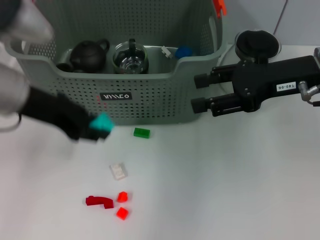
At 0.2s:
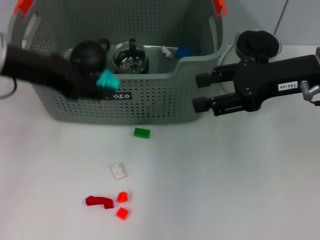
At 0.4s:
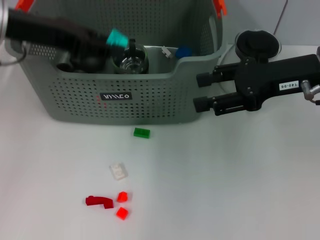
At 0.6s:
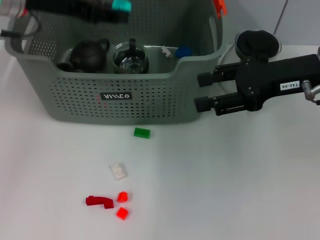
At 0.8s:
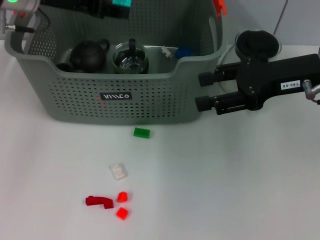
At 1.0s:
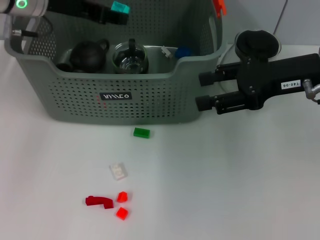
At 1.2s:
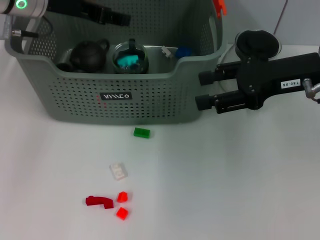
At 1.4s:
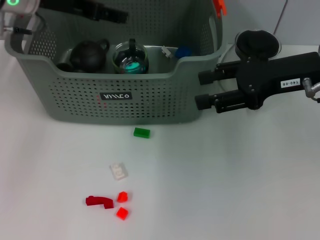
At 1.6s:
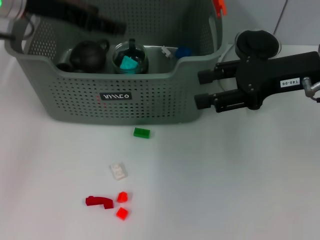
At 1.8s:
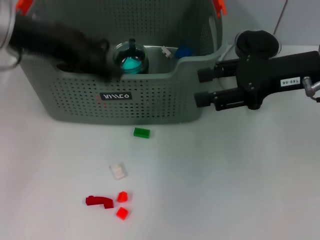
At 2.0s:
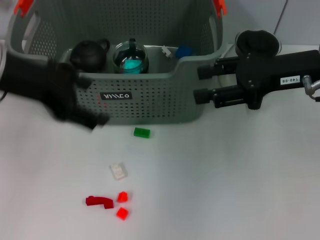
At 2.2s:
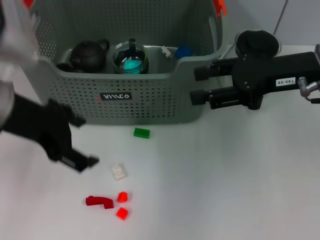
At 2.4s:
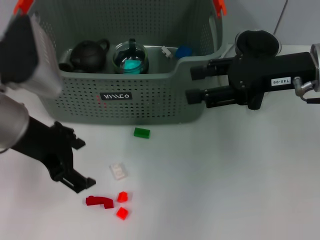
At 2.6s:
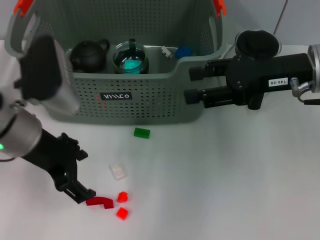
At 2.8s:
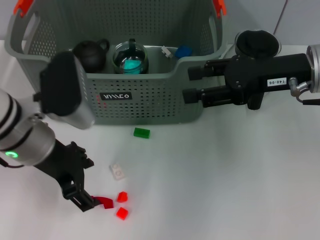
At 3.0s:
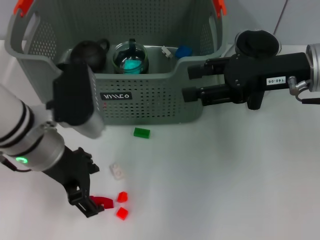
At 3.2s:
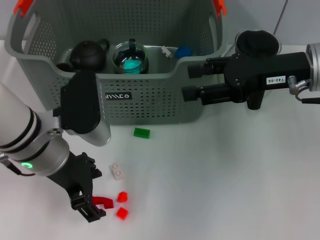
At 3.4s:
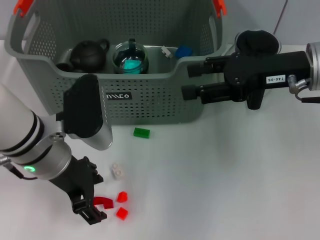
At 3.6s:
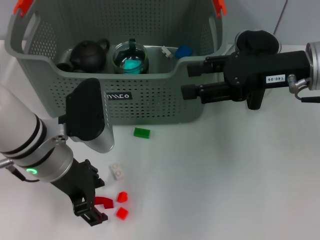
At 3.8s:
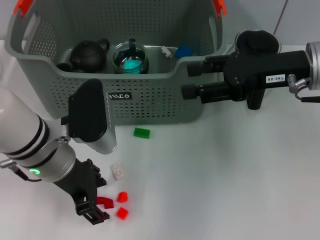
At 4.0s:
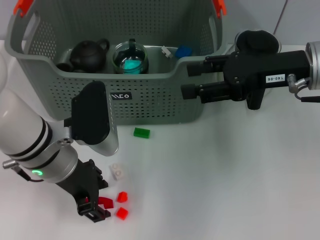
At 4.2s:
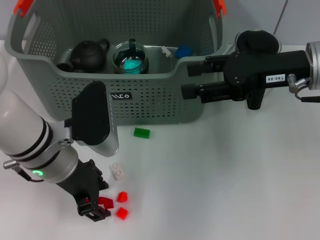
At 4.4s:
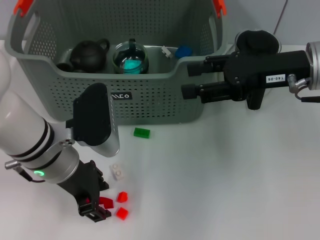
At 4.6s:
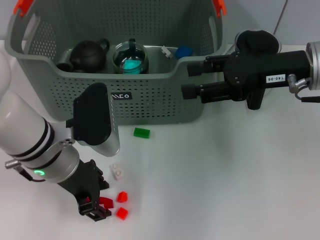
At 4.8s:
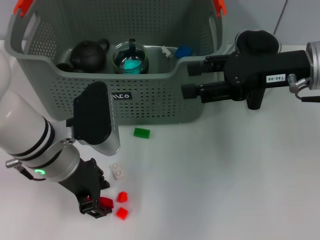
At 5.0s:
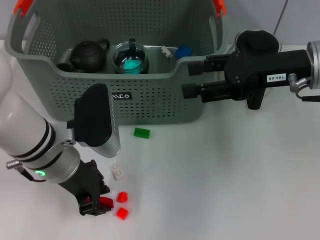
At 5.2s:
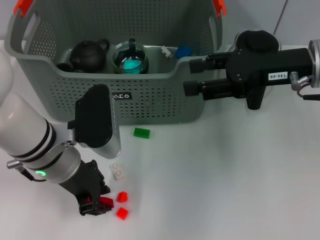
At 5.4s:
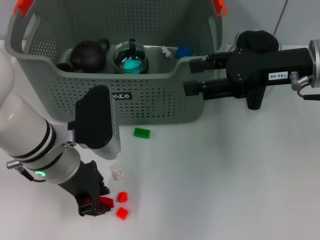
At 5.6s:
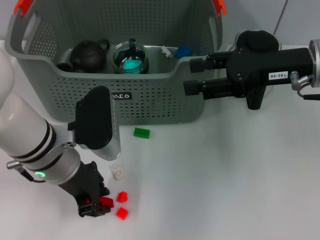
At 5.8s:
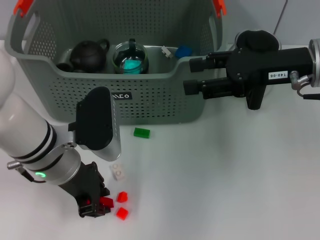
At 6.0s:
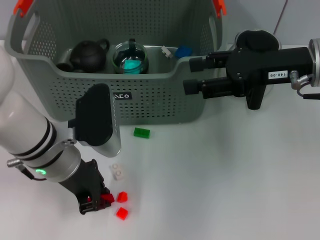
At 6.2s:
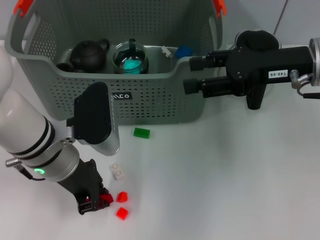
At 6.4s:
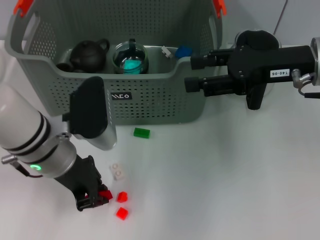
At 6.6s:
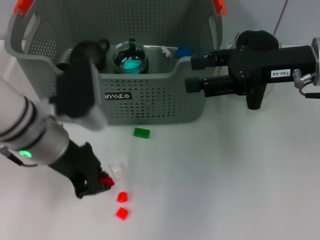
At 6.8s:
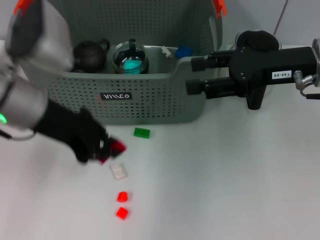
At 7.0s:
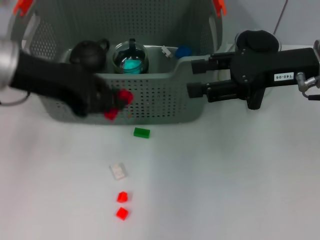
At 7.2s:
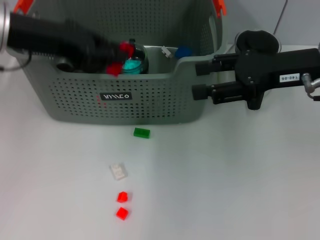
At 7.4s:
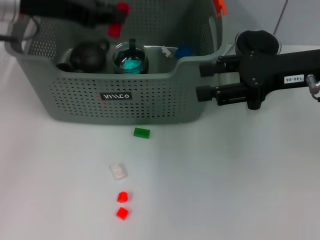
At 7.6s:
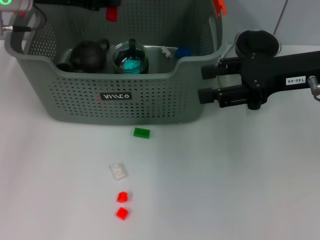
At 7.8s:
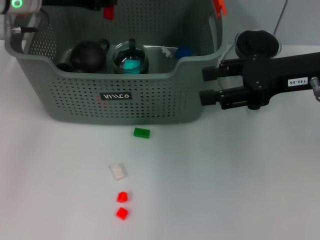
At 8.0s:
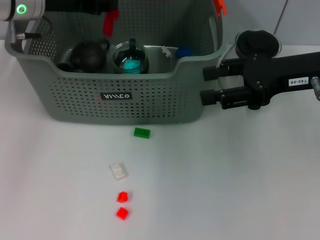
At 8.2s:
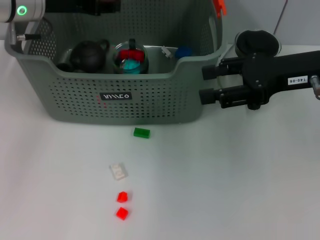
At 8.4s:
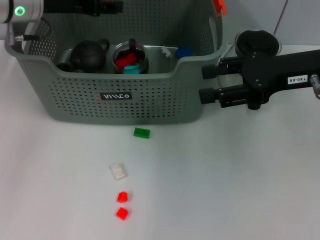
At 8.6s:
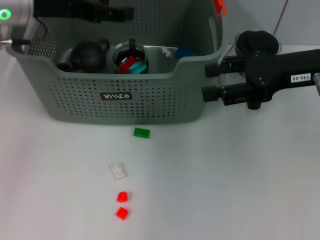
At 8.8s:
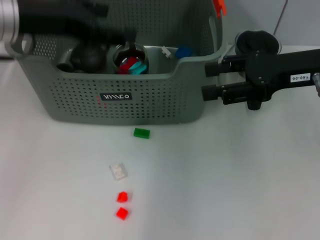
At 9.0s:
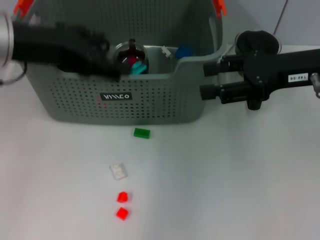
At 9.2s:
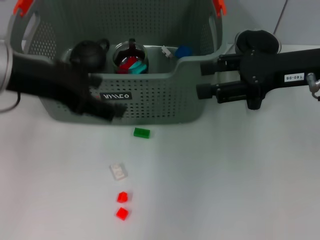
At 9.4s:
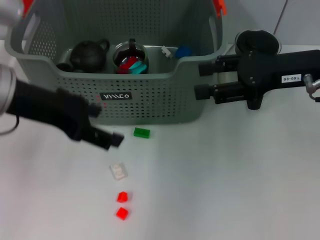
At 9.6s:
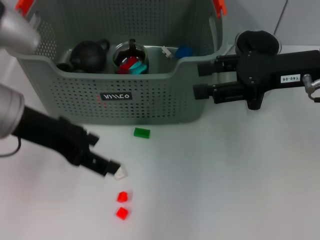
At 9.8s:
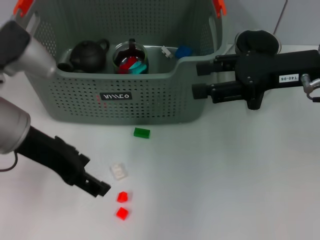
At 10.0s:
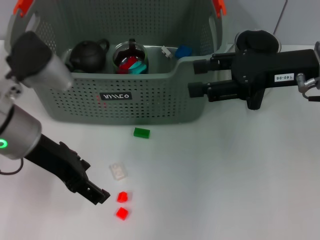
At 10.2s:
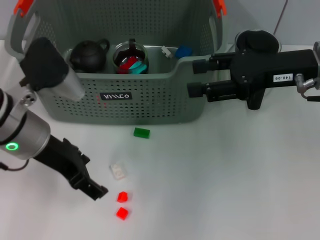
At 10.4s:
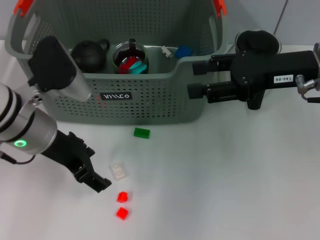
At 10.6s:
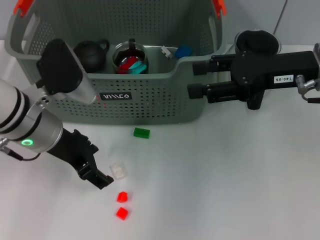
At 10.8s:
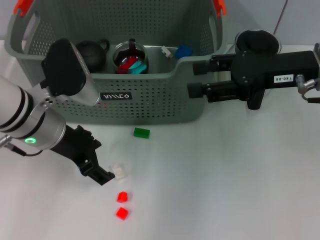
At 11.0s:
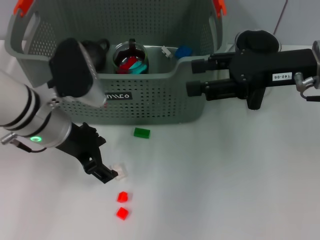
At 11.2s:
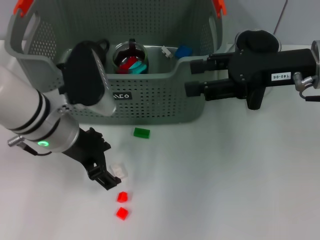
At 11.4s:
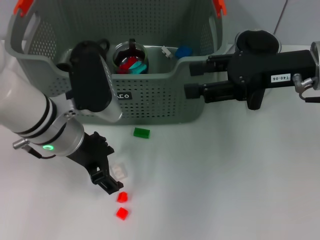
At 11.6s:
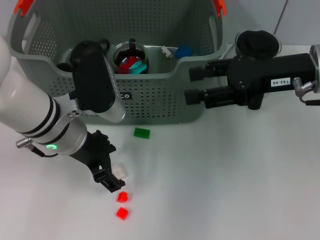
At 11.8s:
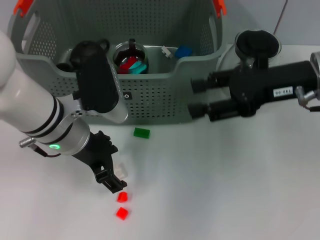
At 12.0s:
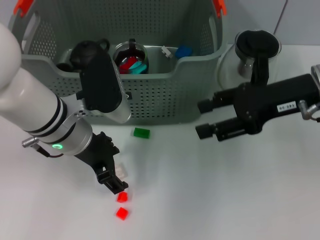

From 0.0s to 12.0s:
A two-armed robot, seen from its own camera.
Task of the whole recording: pick up the teacup on the table and place it into the storage bin, pick up the block on the table and place it into the storage bin.
Step, from 0.0s to 1.6s: Place the light blue block in the storage box with left gripper.
Step, from 1.8s to 6.4s: Grasp the red block with left gripper.
Step, from 6.6s to 8.6s: Place the red block in the storage box with left gripper.
From 0.0s to 1.6s: The left gripper goes roughly 10 cm forward, and opens its fingers.
From 1.6s to 3.0s: The left gripper moves downward, backward and to the right, roughly 15 cm.
From 3.0s to 4.4s: The grippers move only a little.
From 4.4s to 6.0s: Both grippers stay about where they are.
From 6.0s to 7.6s: The left gripper is displaced forward, upward and to the left by approximately 20 cm.
From 7.6s to 9.0s: The left gripper is displaced backward by roughly 10 cm, and opens.
From 9.0s to 10.4s: The left gripper goes some 10 cm downward.
From 10.4s to 12.0s: The left gripper changes place by about 5 cm.

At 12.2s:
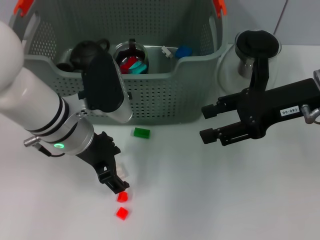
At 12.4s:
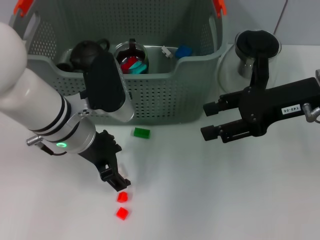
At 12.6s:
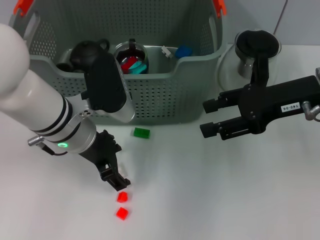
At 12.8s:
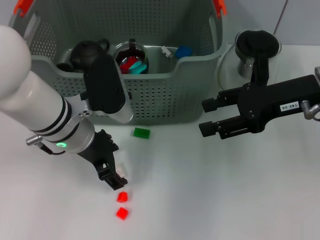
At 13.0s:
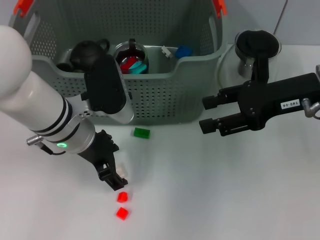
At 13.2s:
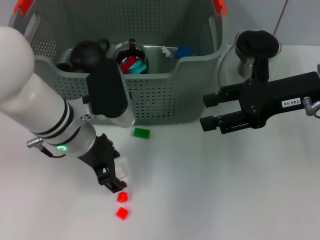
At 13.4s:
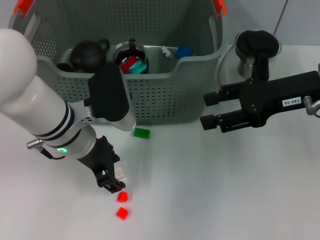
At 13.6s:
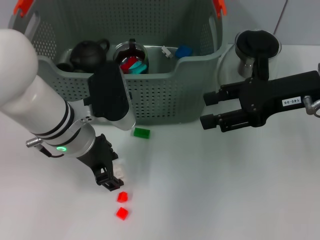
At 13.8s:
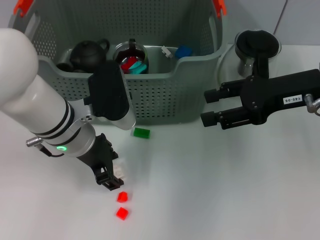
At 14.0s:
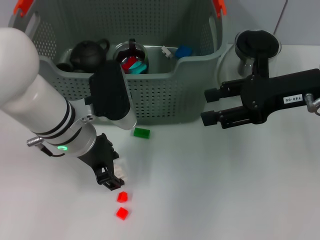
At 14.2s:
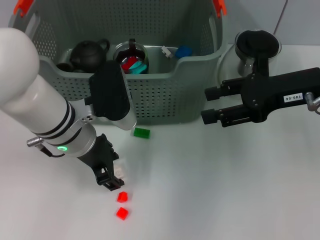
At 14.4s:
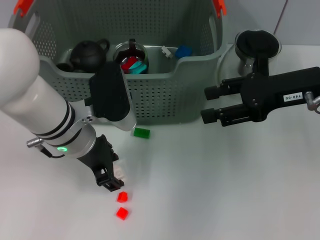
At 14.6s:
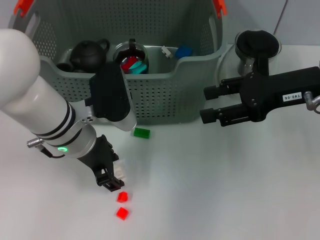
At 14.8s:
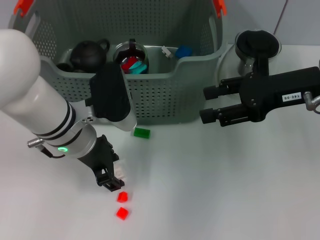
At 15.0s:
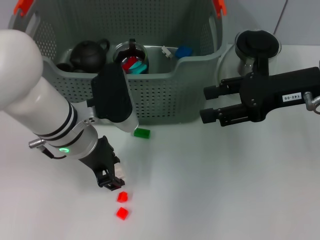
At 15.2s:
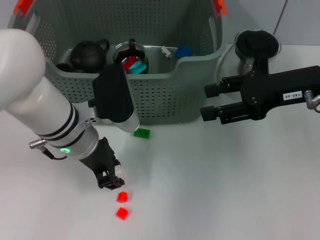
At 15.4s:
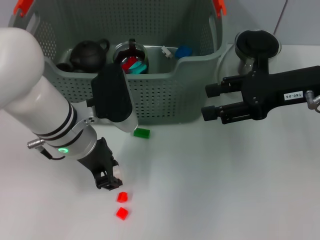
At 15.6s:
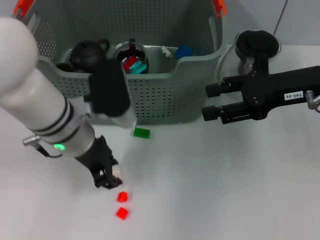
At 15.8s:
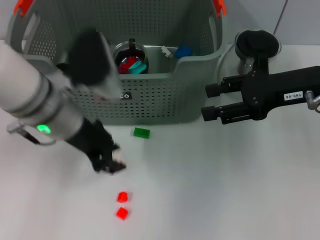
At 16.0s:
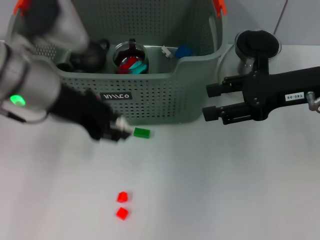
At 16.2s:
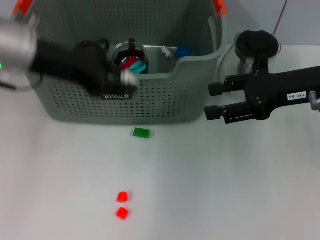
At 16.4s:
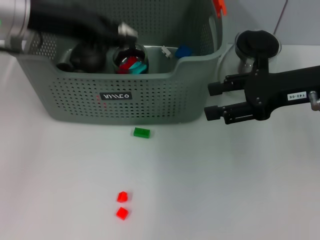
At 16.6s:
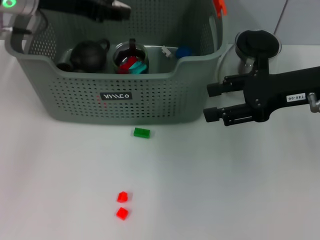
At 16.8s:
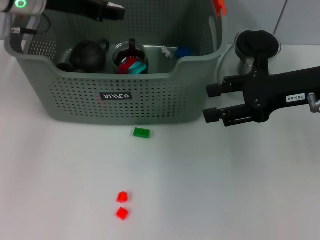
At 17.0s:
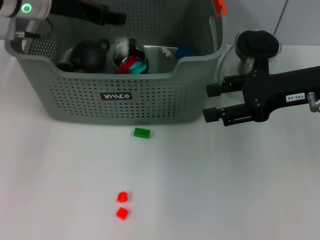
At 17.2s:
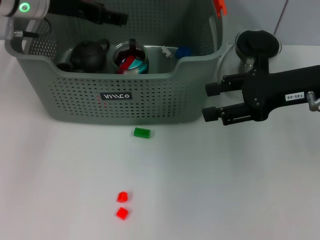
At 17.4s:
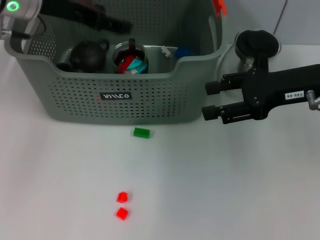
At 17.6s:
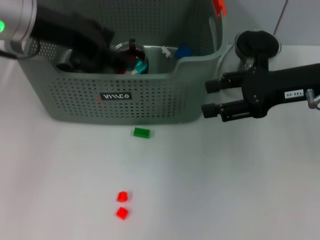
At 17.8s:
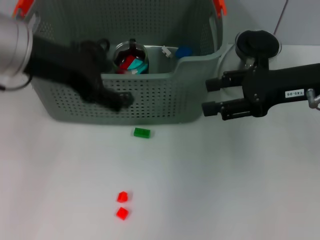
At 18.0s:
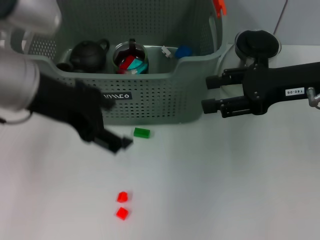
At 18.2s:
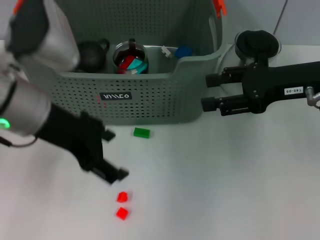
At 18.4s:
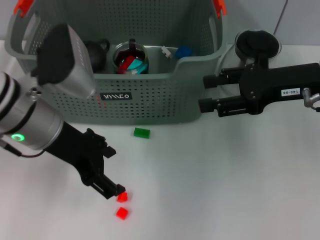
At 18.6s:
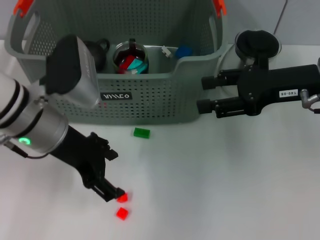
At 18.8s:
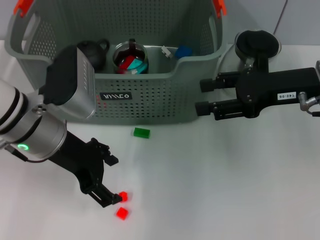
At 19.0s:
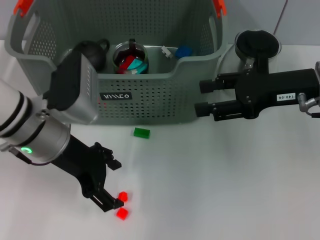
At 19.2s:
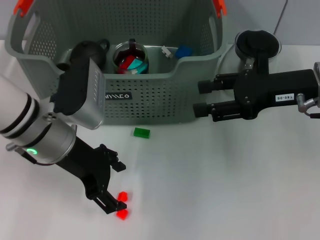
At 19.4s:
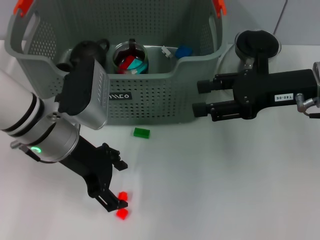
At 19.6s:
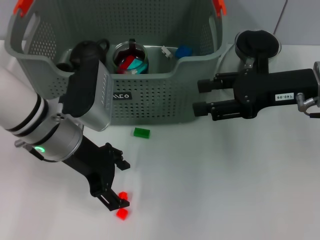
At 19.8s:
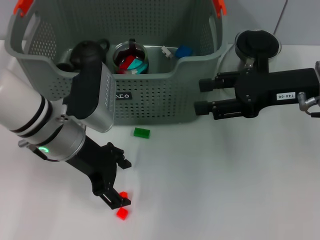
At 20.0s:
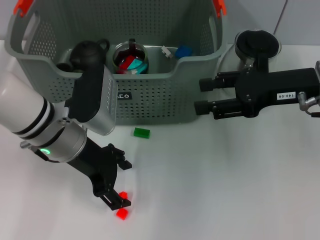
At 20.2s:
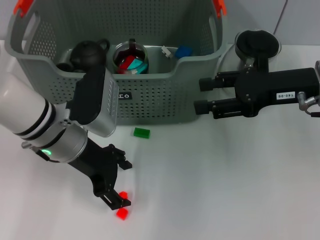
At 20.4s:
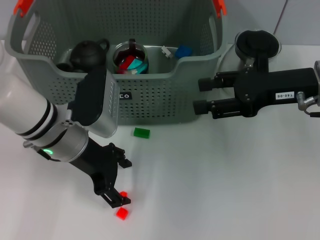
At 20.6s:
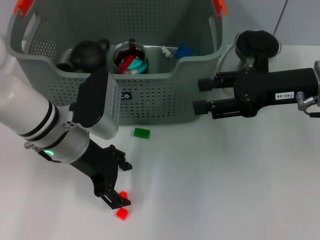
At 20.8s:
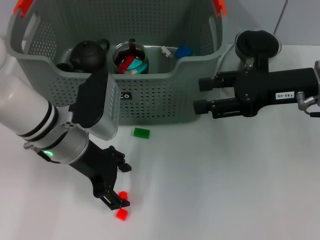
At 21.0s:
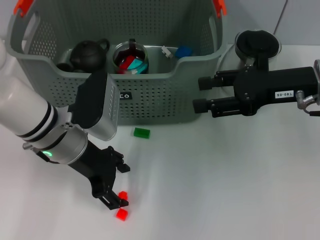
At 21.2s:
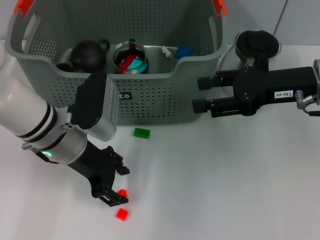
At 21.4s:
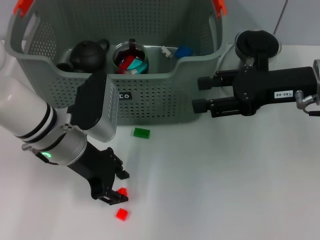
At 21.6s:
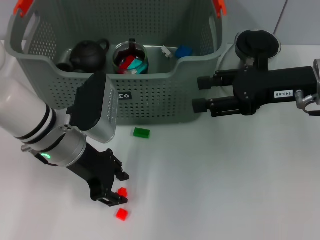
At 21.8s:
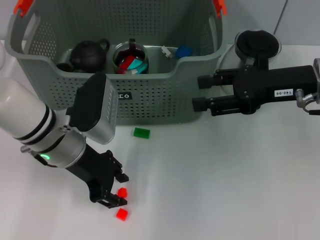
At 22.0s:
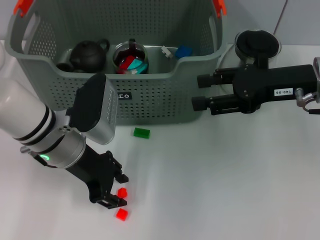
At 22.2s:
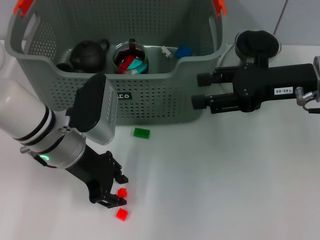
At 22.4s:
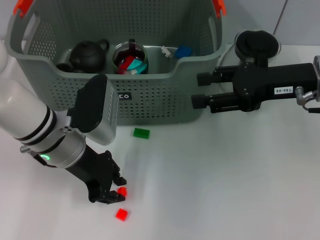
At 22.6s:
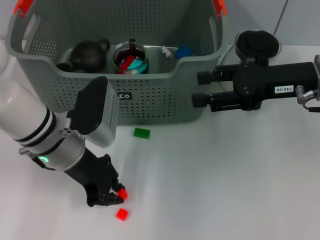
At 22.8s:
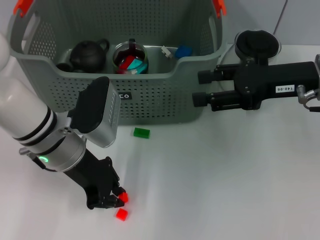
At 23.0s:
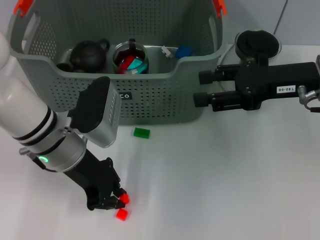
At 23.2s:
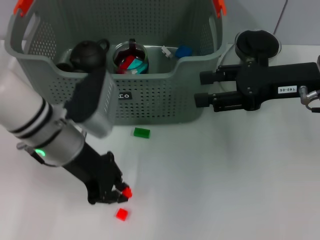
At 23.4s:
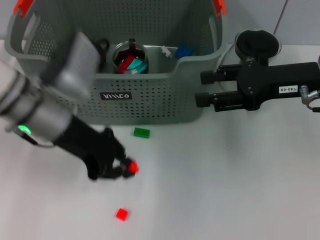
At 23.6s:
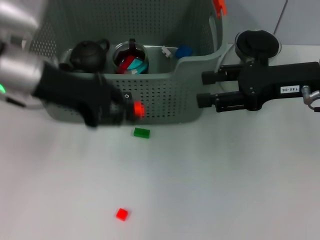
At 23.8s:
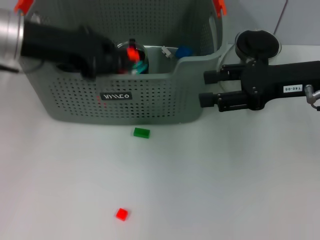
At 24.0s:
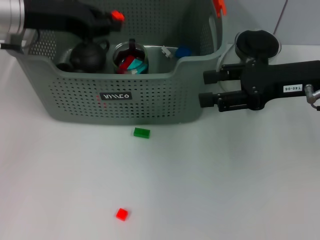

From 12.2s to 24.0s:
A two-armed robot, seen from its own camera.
Task of the whole recording: pick up the teacup on the table and place it into the storage bin, pick up the block on the table and place it into the storage bin.
Step, from 12.2s to 15.6s: Grasp the white block with left gripper.
Step, from 15.8s to 17.2s: Place the white block in the storage box with left gripper.
Step, from 17.4s to 23.0s: Grasp the orange block with left gripper.
From 12.2s to 13.6s: Both grippers stay about where they are.
From 13.6s to 15.2s: The two grippers keep their place.
From 15.2s to 16.6s: The left gripper is displaced upward, forward and to the left by approximately 20 cm.
From 16.6s to 18.2s: The left gripper is displaced backward by about 10 cm, and opens up.
From 18.2s to 19.6s: The left gripper heads downward, covering about 10 cm.
From 19.6s to 21.0s: There are only small adjustments of the grippers.
From 21.0s to 22.6s: The left gripper closes up.
From 22.6s to 24.0s: The left gripper shifts some 15 cm upward, forward and to the left.
